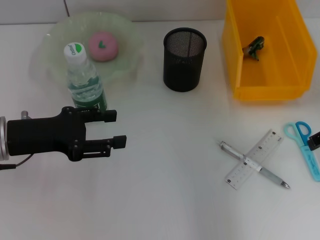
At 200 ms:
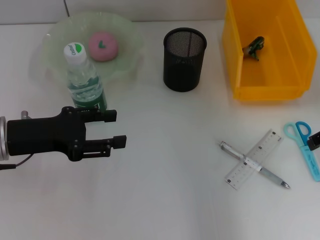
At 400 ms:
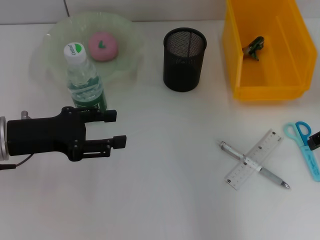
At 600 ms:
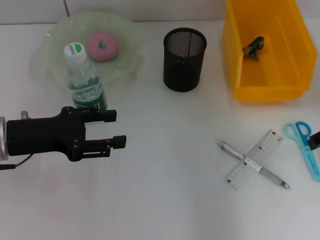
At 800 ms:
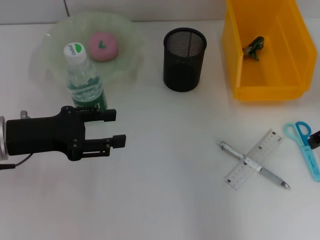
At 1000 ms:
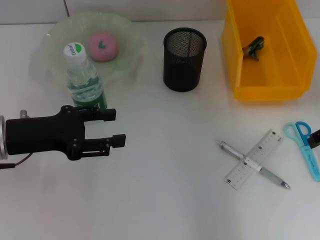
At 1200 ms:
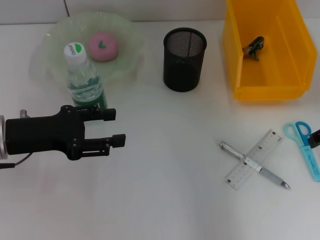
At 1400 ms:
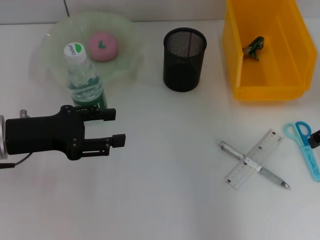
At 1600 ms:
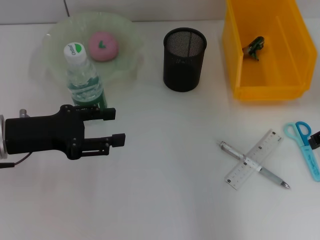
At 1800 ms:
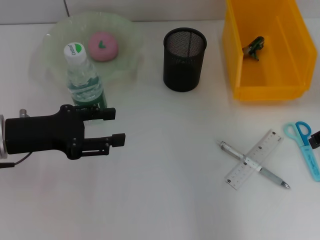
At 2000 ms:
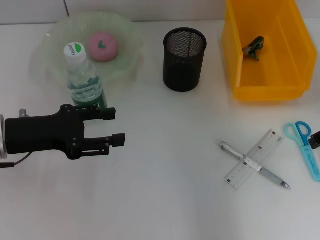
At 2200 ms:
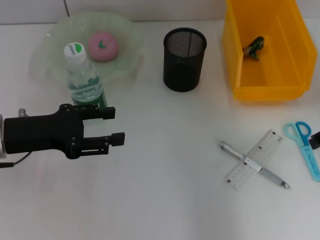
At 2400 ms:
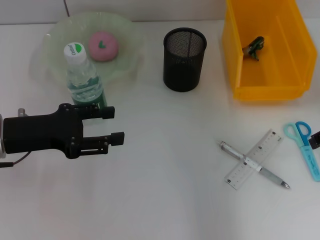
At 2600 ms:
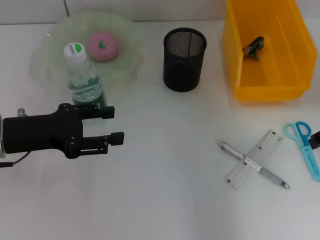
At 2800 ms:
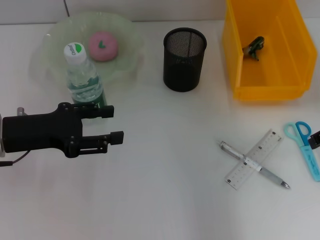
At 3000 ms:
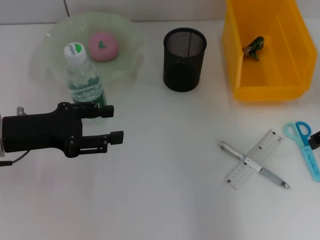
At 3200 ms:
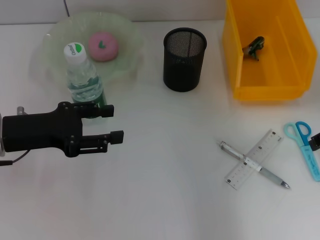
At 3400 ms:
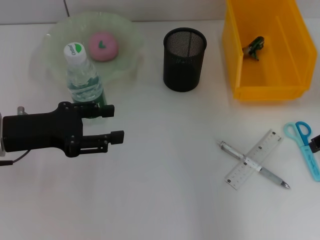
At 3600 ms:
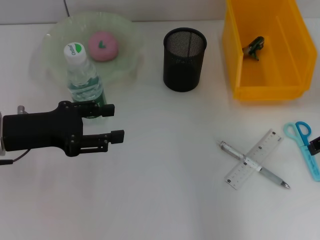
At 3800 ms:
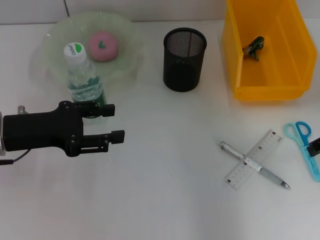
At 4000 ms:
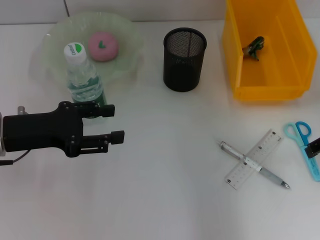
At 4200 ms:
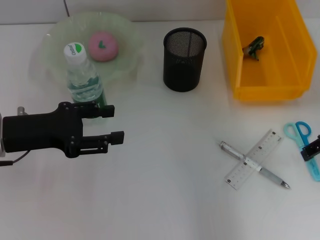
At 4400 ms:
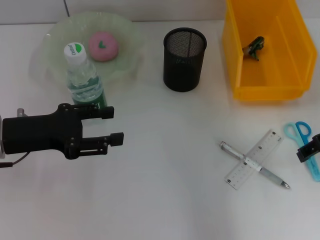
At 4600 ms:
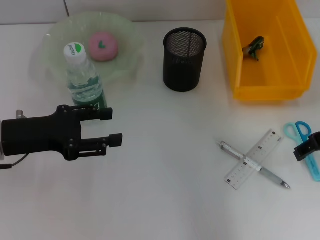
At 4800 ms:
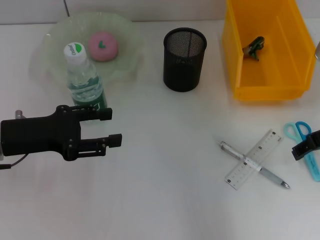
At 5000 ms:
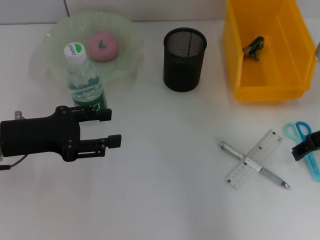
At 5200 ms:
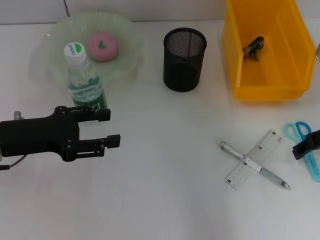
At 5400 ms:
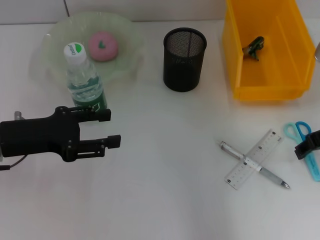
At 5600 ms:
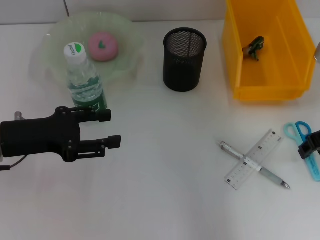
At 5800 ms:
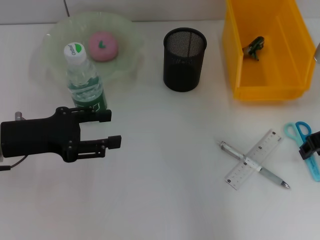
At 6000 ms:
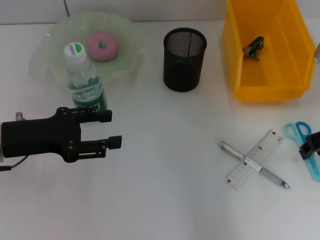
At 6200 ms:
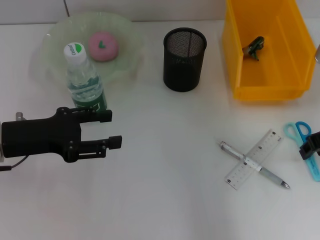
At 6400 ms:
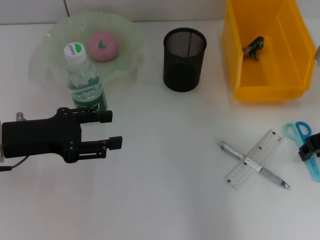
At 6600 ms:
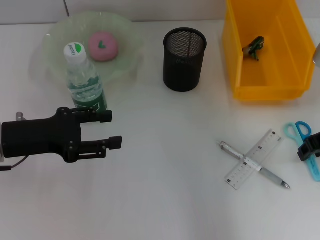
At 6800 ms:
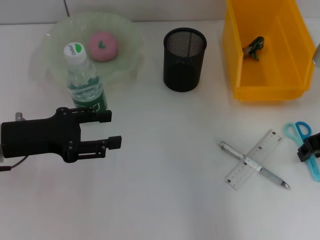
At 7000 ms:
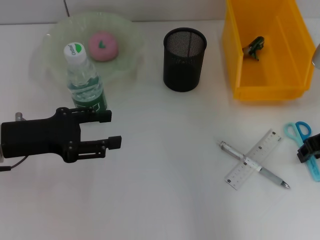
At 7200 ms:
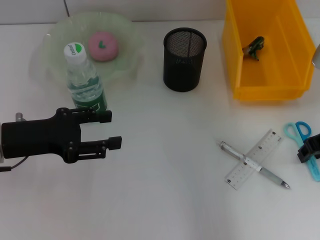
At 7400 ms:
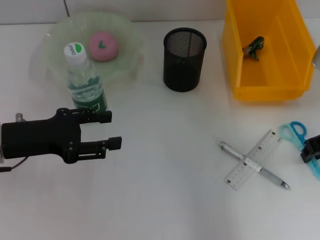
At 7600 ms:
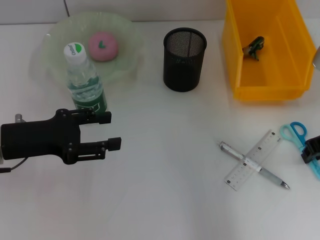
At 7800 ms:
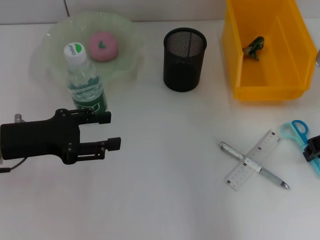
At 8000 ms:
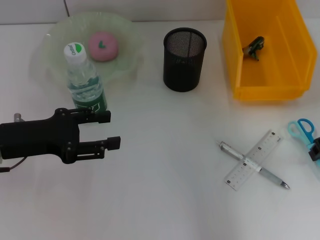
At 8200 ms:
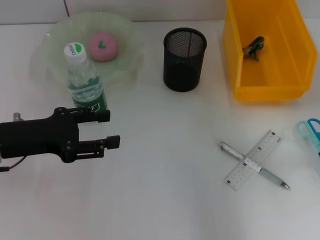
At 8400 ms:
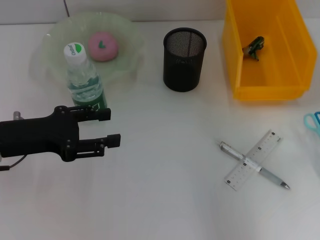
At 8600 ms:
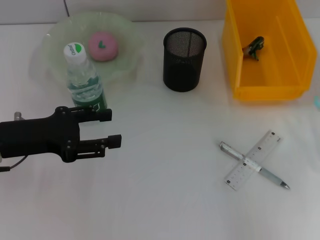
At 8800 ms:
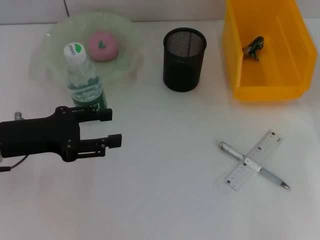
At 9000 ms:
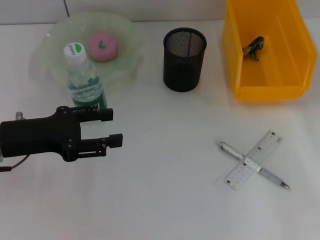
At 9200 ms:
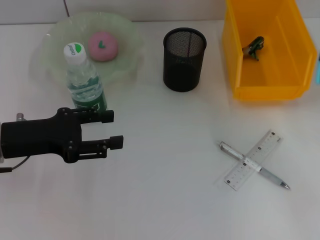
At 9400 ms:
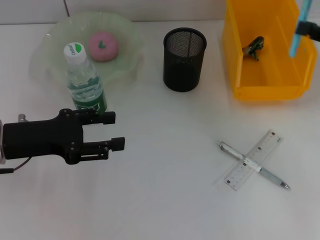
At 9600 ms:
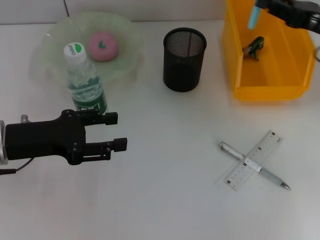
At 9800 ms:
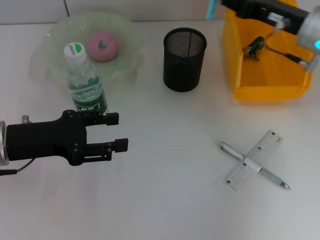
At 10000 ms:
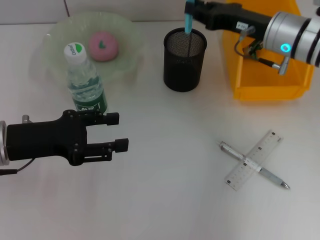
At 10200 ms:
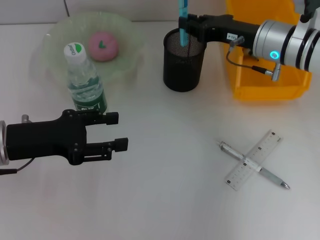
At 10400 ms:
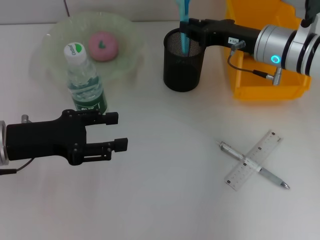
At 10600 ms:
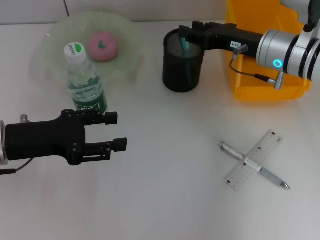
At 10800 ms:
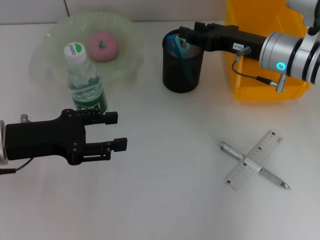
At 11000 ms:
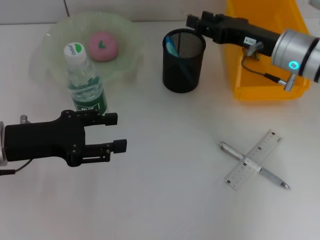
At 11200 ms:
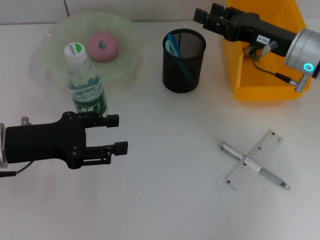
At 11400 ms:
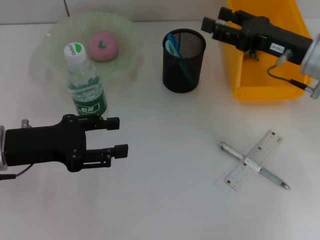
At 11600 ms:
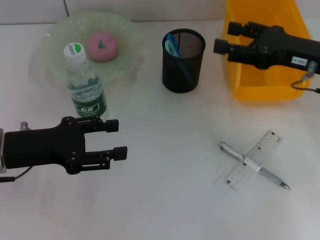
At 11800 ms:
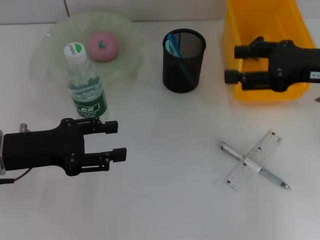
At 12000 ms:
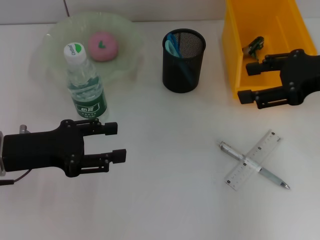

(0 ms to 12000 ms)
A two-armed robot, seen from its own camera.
Step, 0 ms - 7600 ms: Grab the blue scissors with the right hand.
Step, 7800 ms - 10400 ms: Place the blue scissors into the pen holder with the right hand.
0 ms - 3000 ms: Both grippers stay about where they are.
3000 ms - 4400 ms: The grippers move only a little.
4400 ms - 6000 ms: The right gripper closes up.
6000 ms - 7600 ms: Both grippers stay about where they are.
7600 ms - 9000 ms: The right gripper shifts some 10 cm to the right.
9000 ms - 10400 ms: The right gripper heads to the left and forward, covering approximately 25 cm.
10400 ms - 12000 ms: The right gripper goes approximately 15 cm to the right, upward and backward, and opens.

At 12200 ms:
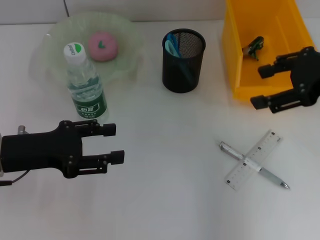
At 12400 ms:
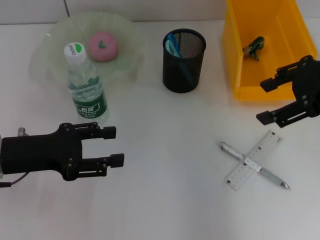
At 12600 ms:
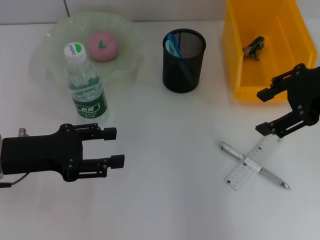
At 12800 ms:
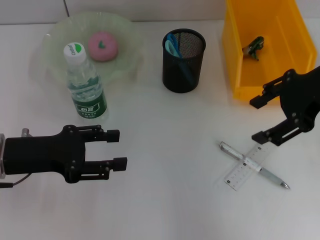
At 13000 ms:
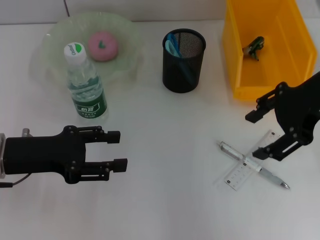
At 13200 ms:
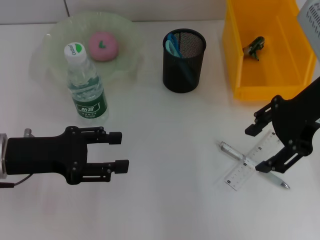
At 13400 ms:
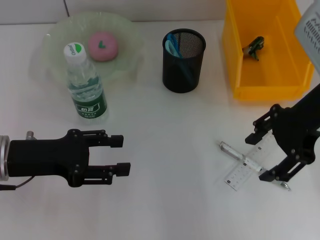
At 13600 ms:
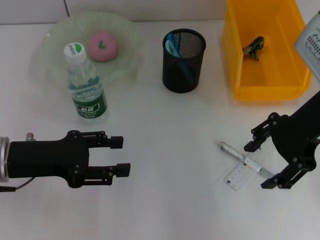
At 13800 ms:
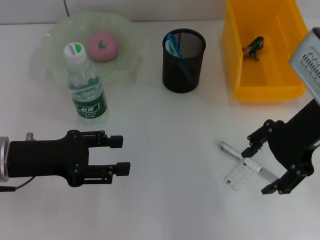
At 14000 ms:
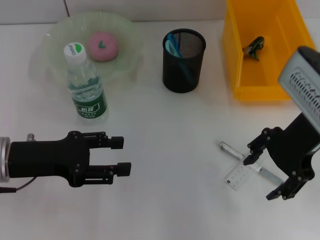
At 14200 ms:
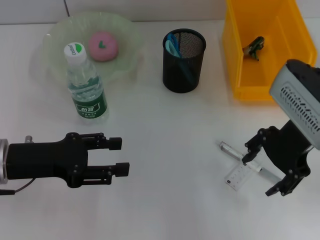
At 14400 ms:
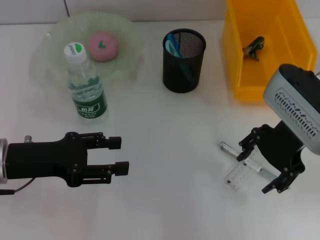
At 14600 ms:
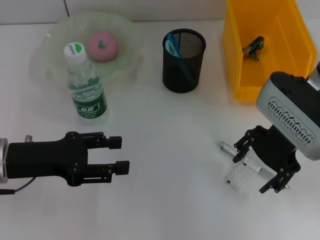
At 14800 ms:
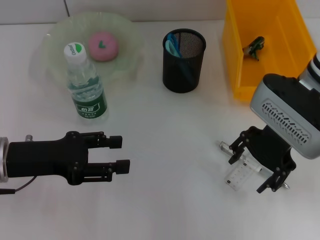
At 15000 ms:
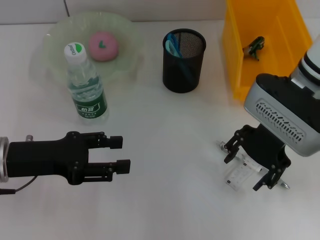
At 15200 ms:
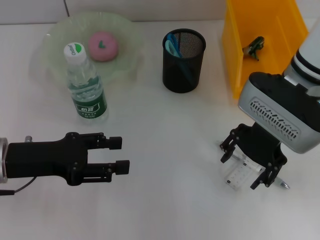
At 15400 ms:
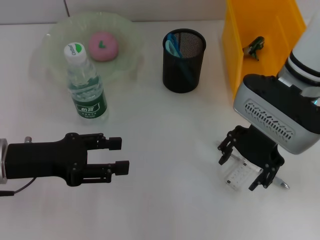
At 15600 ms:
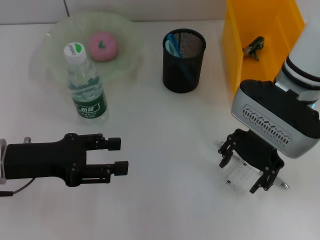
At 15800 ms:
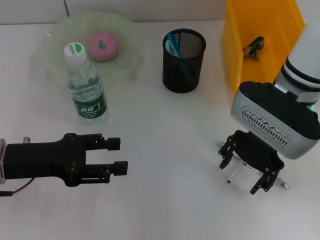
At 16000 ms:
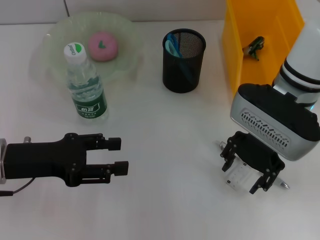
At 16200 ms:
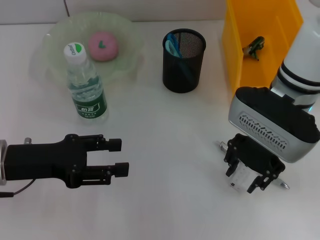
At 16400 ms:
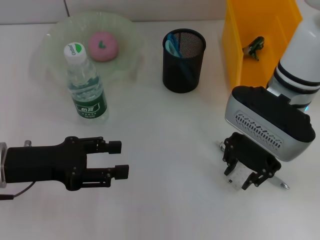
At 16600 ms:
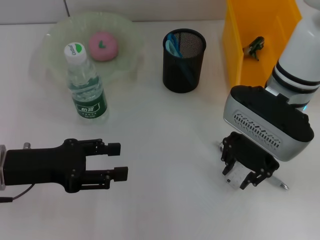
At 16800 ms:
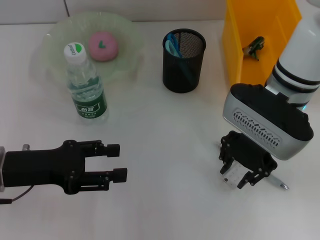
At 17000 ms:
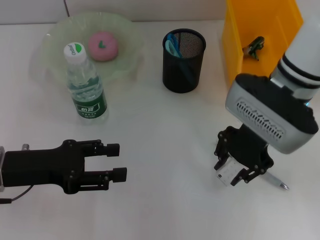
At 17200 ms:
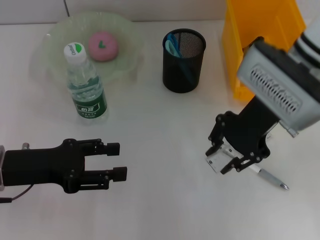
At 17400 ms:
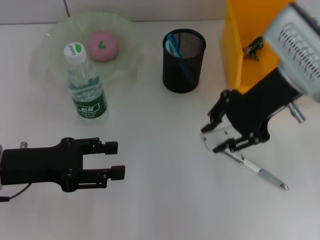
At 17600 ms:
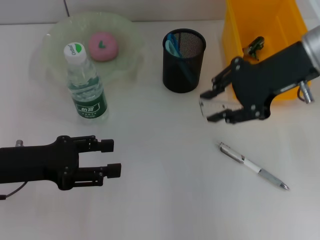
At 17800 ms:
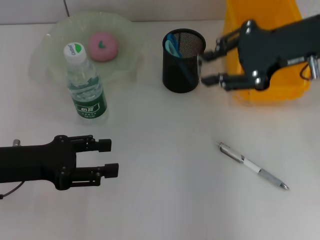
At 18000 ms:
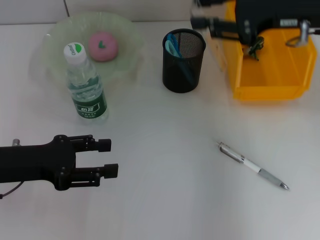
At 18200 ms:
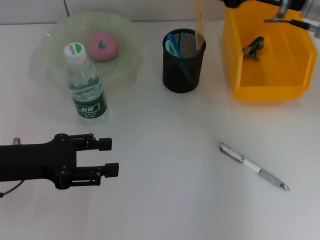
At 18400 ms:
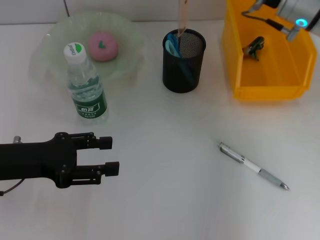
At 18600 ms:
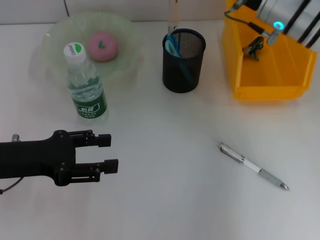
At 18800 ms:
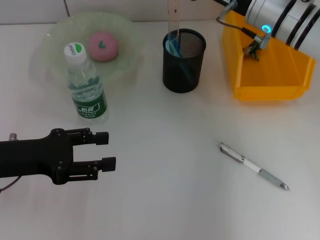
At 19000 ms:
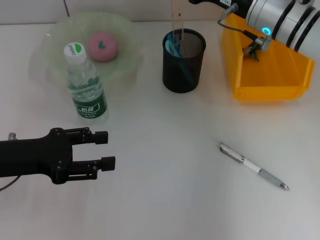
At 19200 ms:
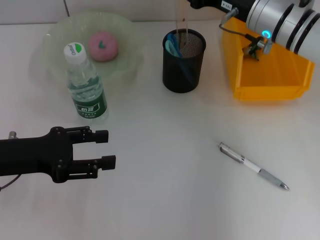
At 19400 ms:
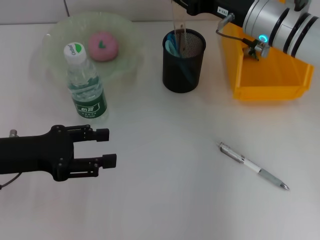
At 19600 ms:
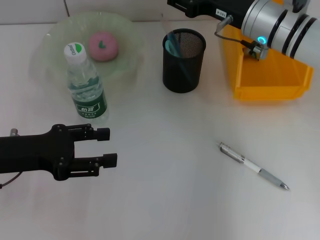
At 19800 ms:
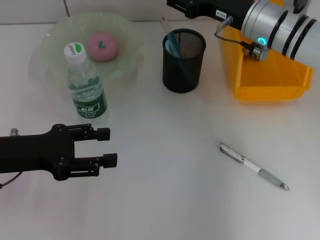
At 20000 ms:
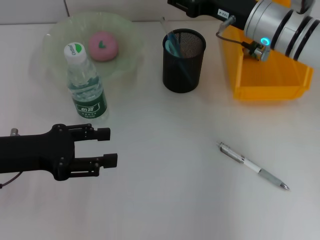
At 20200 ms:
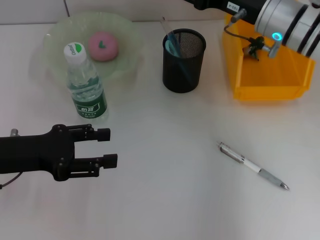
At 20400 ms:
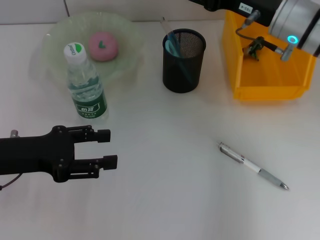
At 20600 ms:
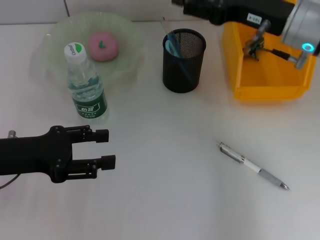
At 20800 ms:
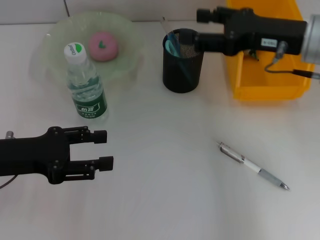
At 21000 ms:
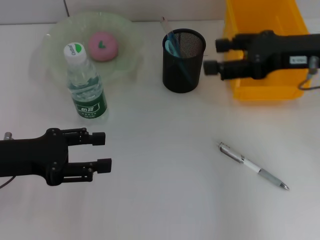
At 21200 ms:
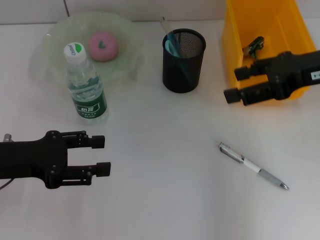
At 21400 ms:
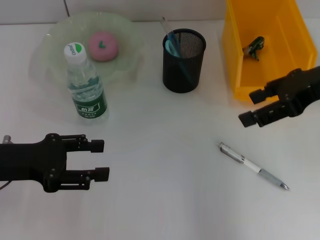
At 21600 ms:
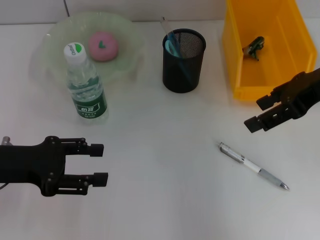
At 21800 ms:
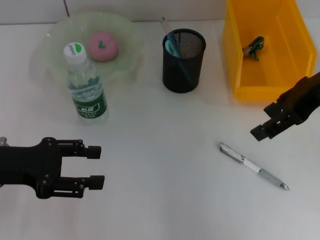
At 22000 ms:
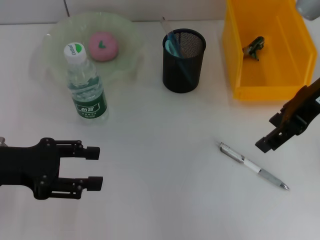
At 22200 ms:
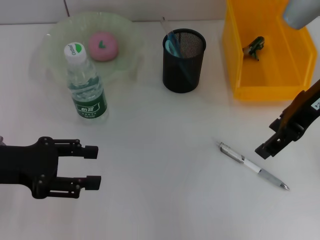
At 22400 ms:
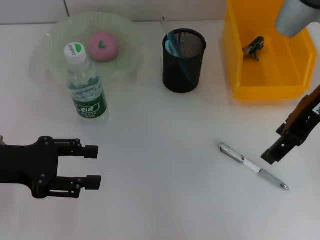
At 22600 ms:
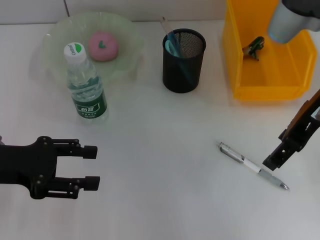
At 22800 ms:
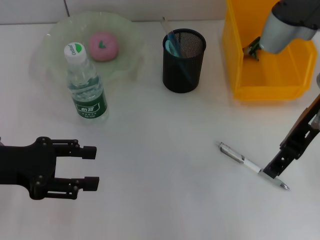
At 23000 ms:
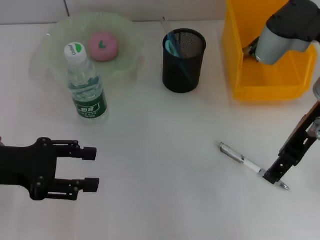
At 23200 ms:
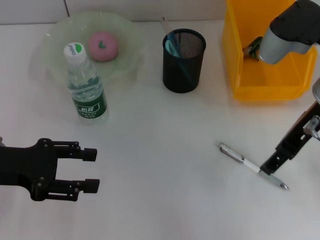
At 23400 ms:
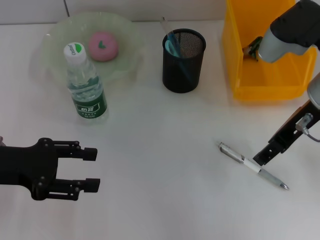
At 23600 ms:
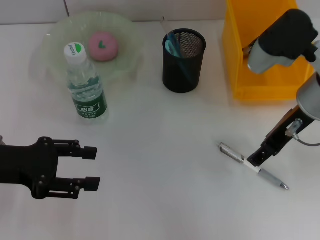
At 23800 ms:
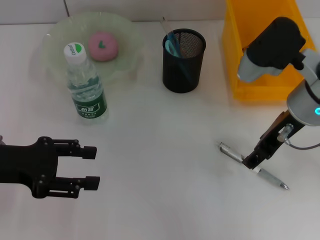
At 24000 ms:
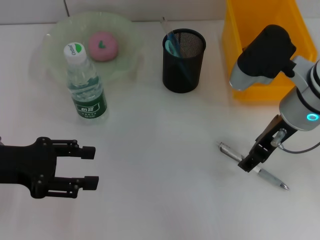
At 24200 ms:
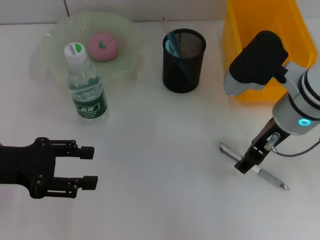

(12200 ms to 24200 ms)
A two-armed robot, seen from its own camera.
Step, 12200 ms - 16200 ms: Grab the ruler with the right hand.
Step, 16400 ms - 19800 ms: Place the ruler into the pen holder with the right hand.
12200 ms - 13800 ms: The right gripper is displaced to the left by about 5 cm.
13800 ms - 15200 ms: The right gripper moves to the left, approximately 5 cm.
15200 ms - 16600 ms: The right gripper closes.
16600 ms - 18200 ms: The right gripper heads to the right and upward, covering roughly 10 cm.
18200 ms - 19800 ms: The right gripper is displaced downward and to the left by some 10 cm.
19800 ms - 21200 ms: The right gripper moves to the right, backward and upward, approximately 15 cm, and opens.
21200 ms - 22600 ms: The right gripper moves to the left, about 5 cm.
22600 ms - 24200 ms: The right gripper is displaced downward by some 10 cm.
